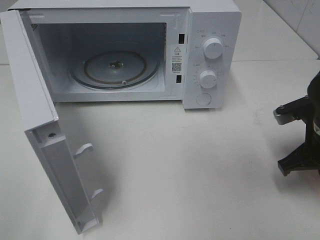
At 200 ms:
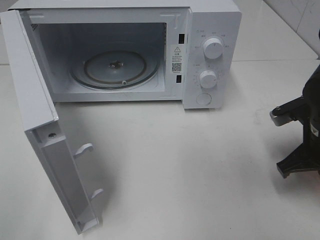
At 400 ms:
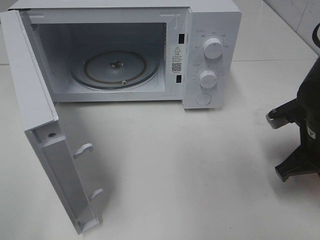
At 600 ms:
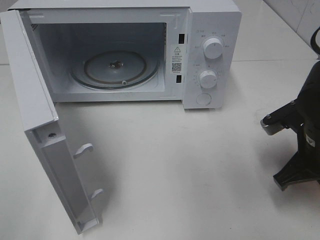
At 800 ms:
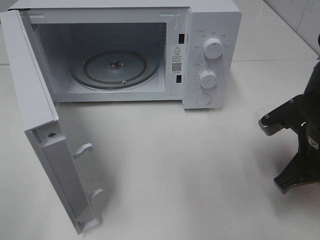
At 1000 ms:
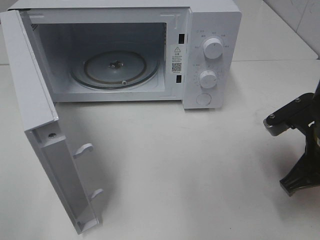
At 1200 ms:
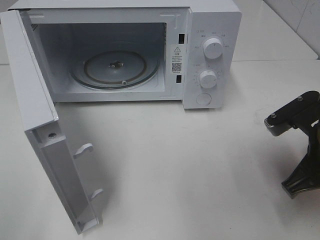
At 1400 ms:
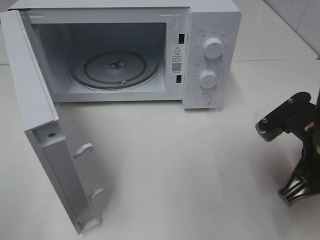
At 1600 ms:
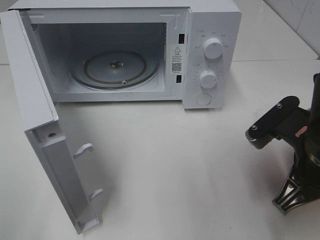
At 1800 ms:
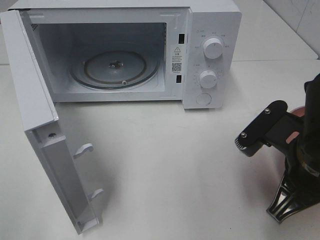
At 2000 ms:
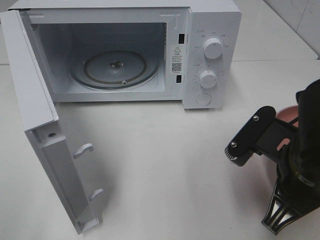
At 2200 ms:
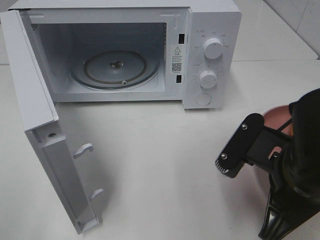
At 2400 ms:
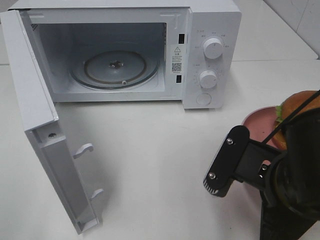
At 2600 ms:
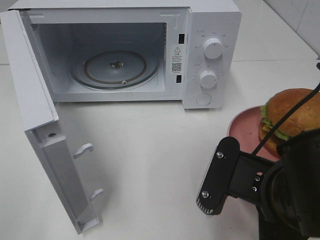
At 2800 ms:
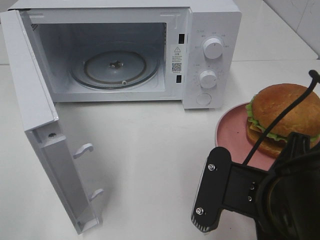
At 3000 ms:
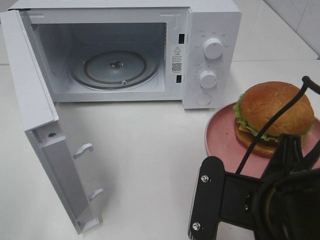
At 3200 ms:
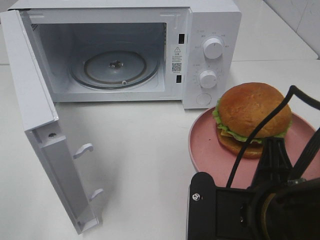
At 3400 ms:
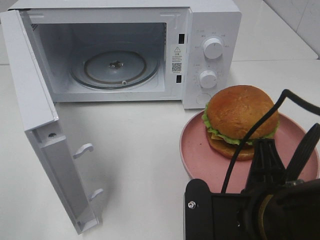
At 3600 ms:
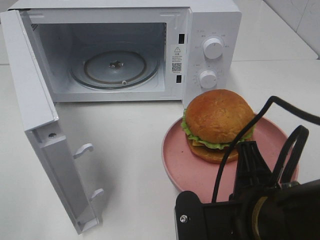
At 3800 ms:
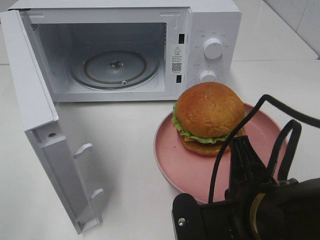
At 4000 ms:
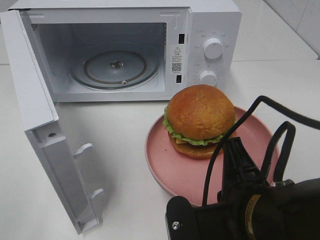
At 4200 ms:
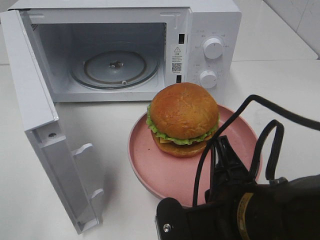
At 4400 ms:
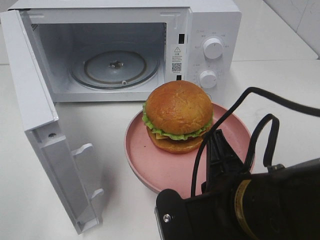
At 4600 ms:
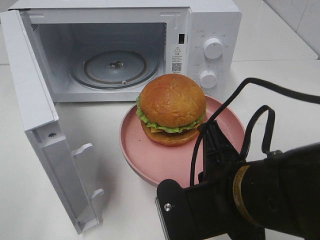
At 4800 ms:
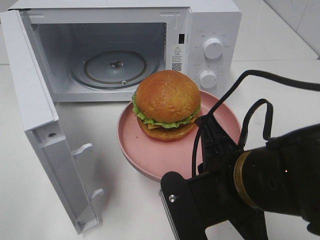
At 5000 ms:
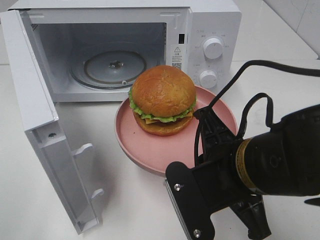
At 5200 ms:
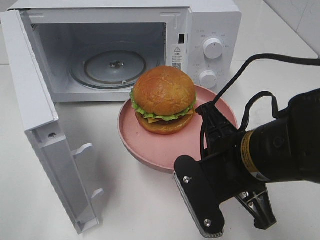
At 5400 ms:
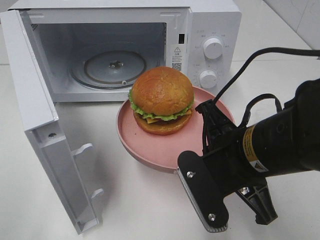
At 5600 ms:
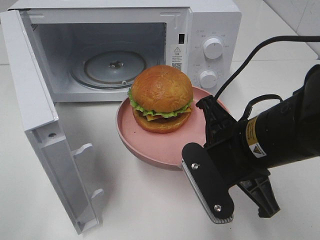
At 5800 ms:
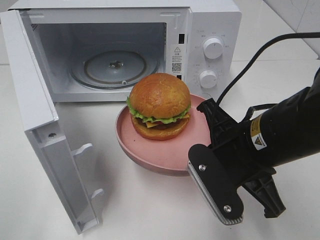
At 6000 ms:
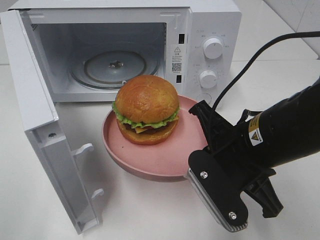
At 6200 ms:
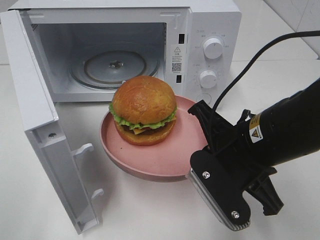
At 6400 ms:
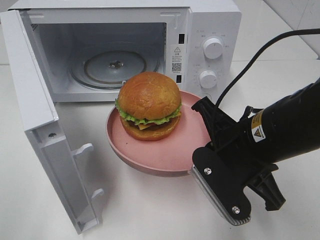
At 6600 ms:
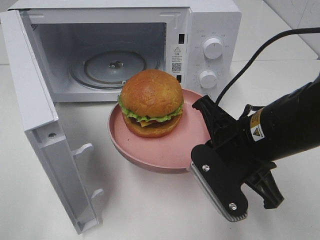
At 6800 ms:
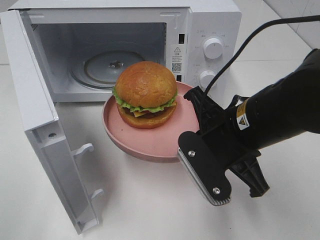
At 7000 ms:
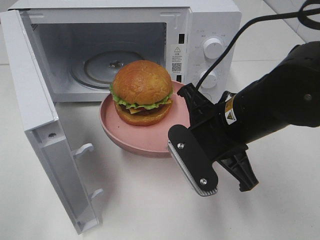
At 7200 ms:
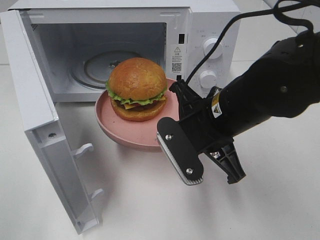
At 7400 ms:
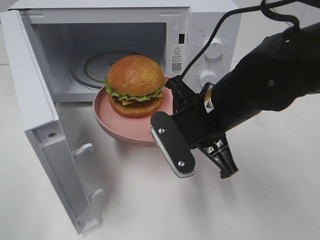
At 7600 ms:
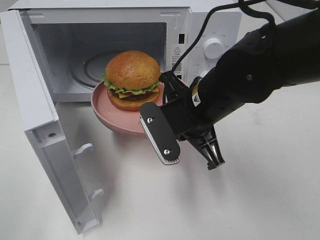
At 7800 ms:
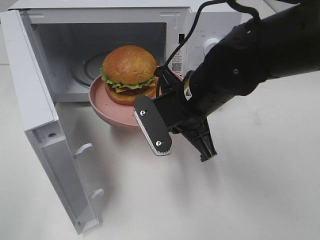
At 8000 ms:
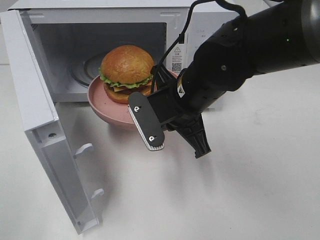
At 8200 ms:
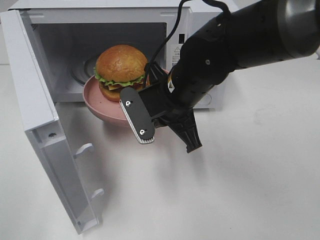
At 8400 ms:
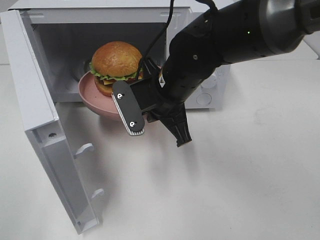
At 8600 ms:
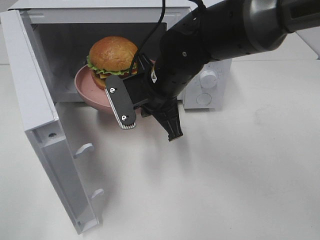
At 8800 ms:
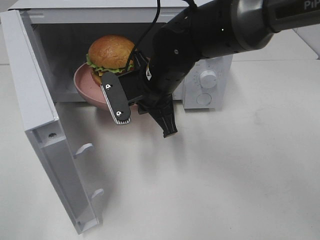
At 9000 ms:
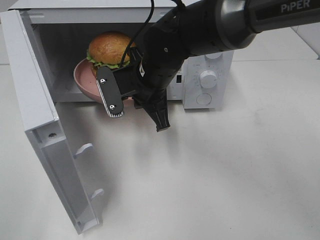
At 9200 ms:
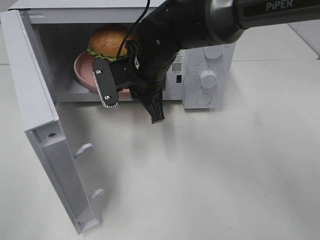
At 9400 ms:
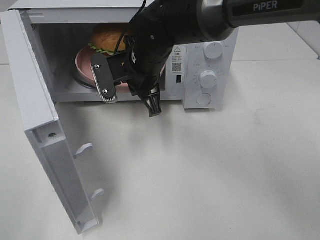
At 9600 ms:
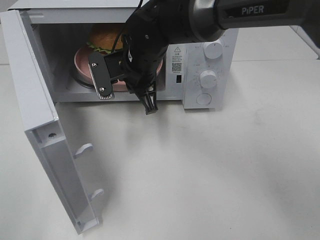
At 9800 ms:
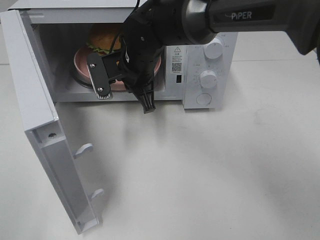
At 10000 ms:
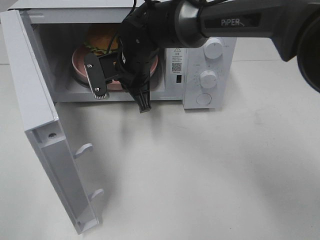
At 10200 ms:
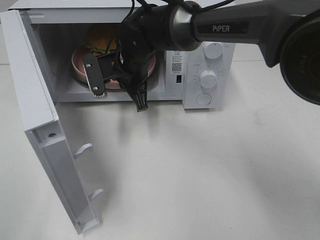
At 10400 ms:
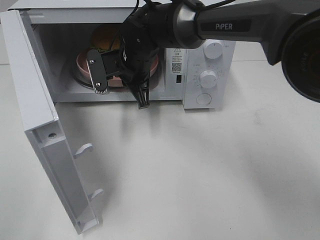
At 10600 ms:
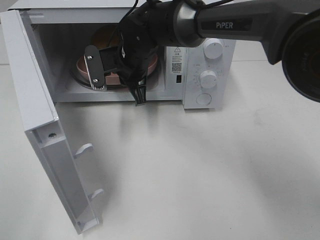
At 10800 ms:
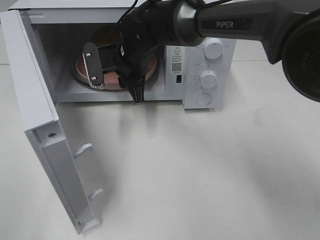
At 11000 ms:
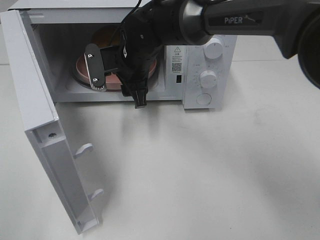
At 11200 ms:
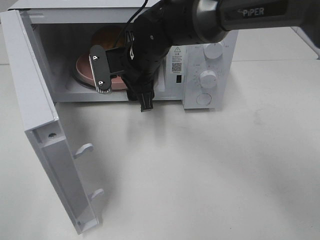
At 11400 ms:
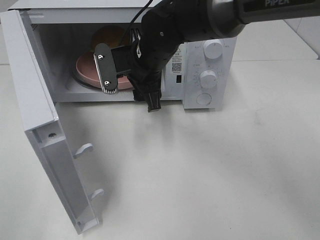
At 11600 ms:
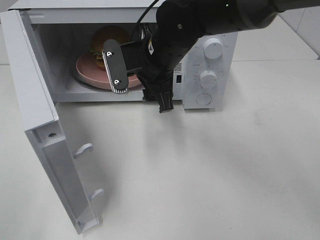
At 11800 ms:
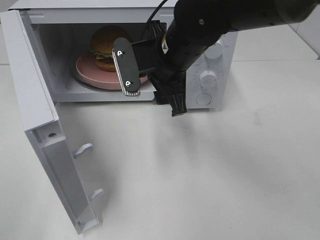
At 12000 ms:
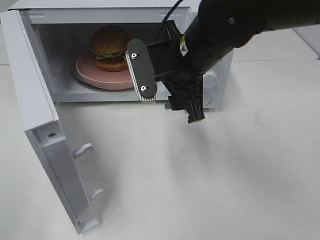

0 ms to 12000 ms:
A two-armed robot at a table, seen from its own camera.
Task of the whole recording: Heat the burger.
Step, 0 ms to 10800 ms: Right hand: place the plate in the microwave.
0 ms to 1600 ms: The right gripper shifts about 10 cm backward and to the left.
1600 ms to 3000 ms: The right gripper heads backward and to the left, covering some 10 cm.
4400 ms to 6000 ms: The right gripper travels forward by roughly 10 cm.
6000 ms to 7600 ms: The right gripper travels forward by roughly 5 cm.
7600 ms to 9000 ms: The right gripper is displaced forward and to the left by roughly 10 cm.
9000 ms to 10400 ms: The right gripper shifts roughly 5 cm forward.
10400 ms to 12000 ms: The right gripper is displaced backward, to the right and upward by approximately 15 cm, and opens its fingers.

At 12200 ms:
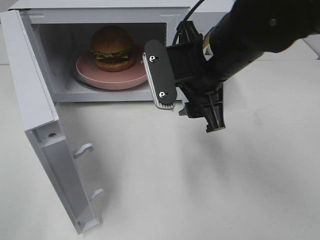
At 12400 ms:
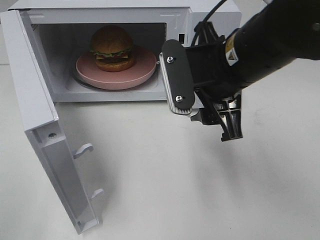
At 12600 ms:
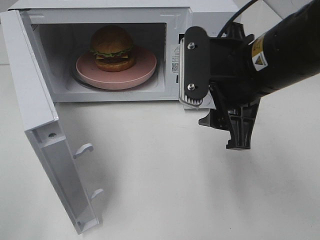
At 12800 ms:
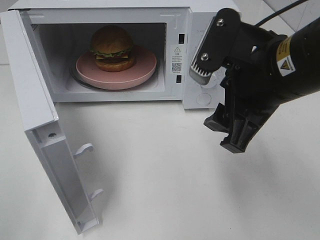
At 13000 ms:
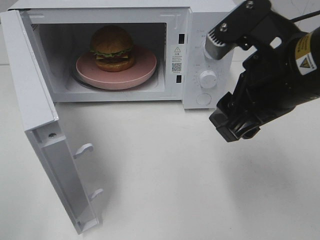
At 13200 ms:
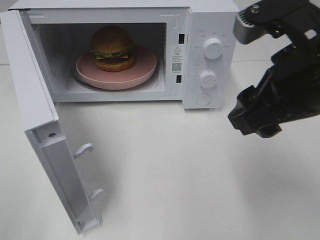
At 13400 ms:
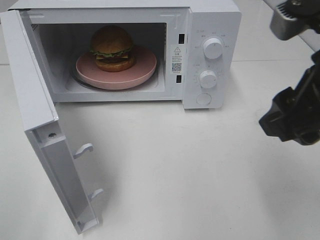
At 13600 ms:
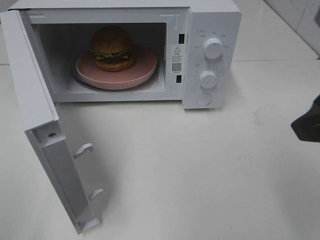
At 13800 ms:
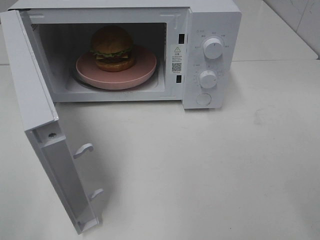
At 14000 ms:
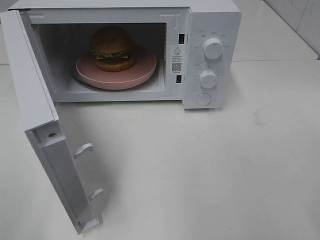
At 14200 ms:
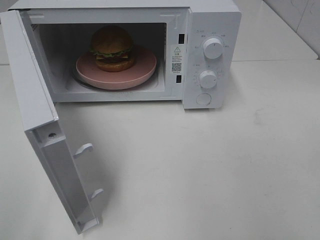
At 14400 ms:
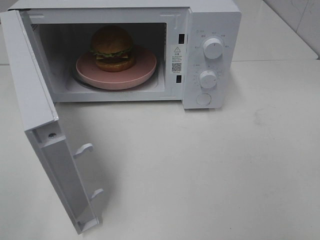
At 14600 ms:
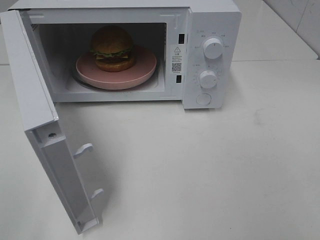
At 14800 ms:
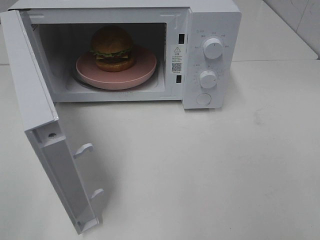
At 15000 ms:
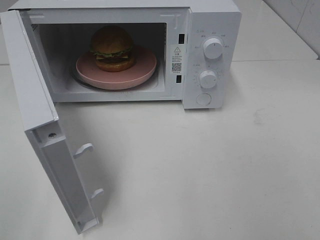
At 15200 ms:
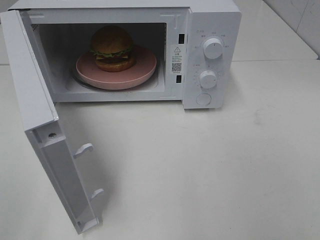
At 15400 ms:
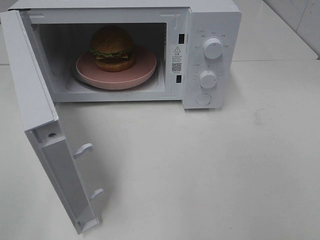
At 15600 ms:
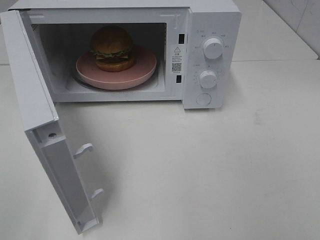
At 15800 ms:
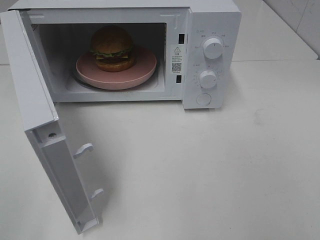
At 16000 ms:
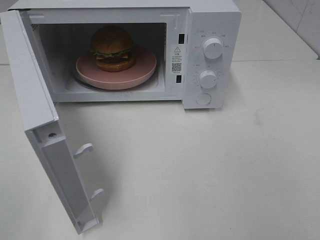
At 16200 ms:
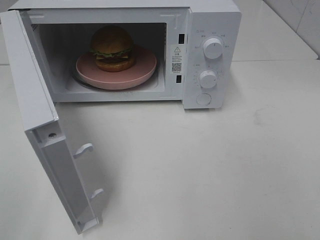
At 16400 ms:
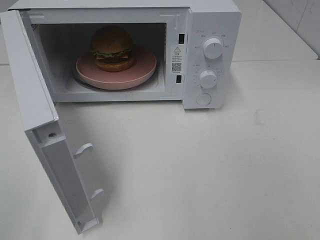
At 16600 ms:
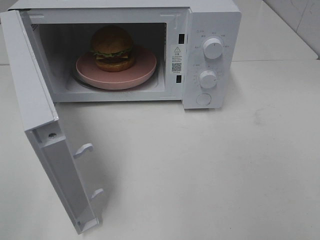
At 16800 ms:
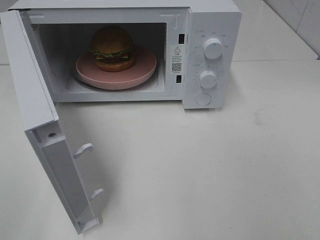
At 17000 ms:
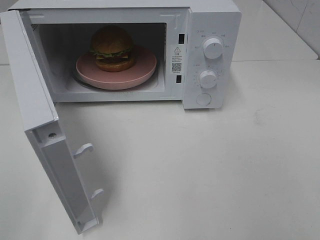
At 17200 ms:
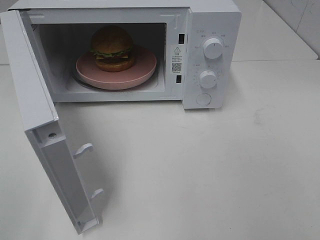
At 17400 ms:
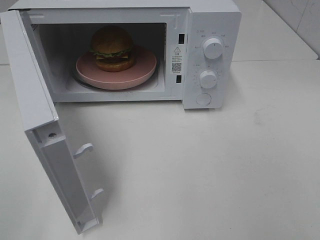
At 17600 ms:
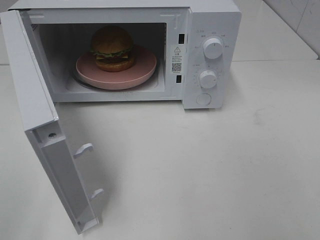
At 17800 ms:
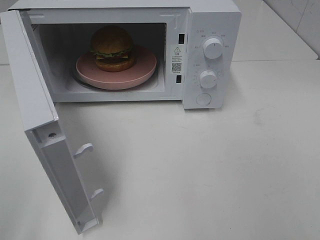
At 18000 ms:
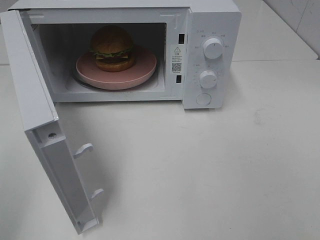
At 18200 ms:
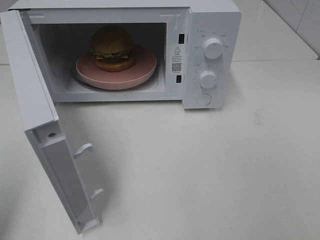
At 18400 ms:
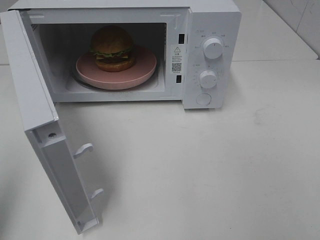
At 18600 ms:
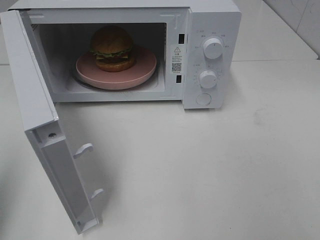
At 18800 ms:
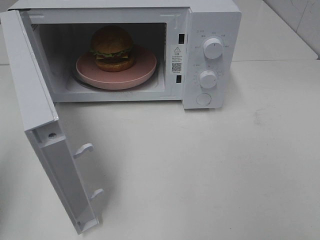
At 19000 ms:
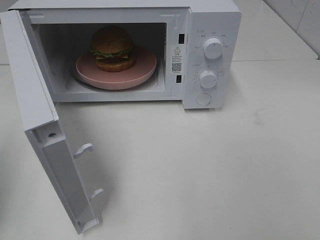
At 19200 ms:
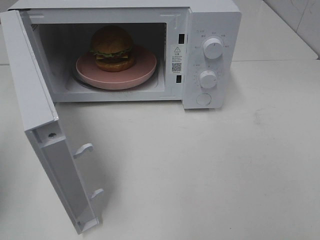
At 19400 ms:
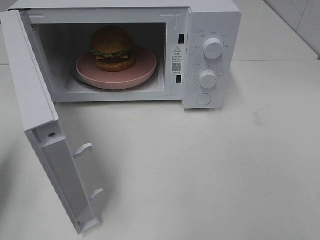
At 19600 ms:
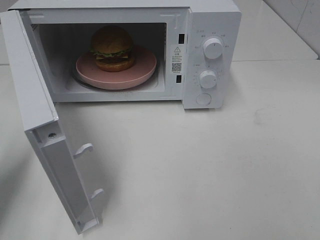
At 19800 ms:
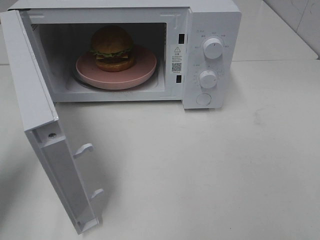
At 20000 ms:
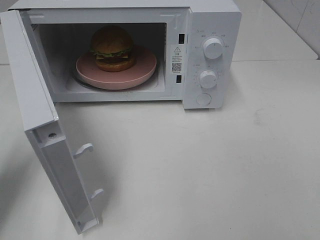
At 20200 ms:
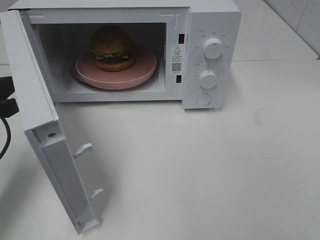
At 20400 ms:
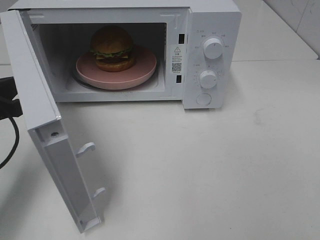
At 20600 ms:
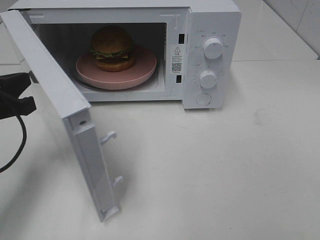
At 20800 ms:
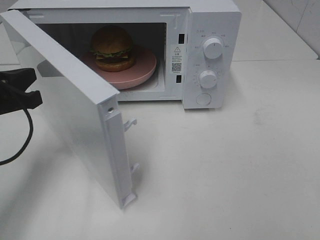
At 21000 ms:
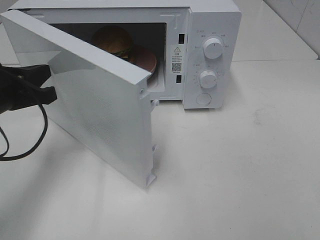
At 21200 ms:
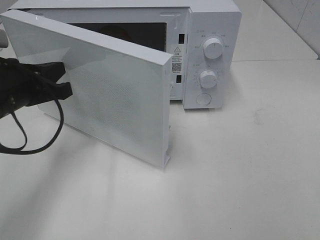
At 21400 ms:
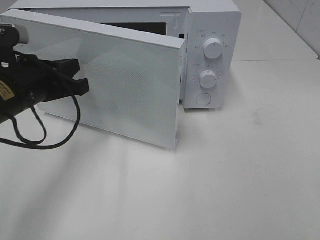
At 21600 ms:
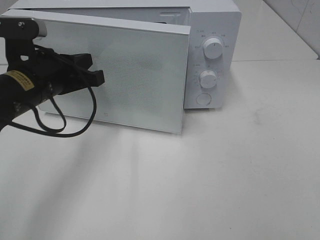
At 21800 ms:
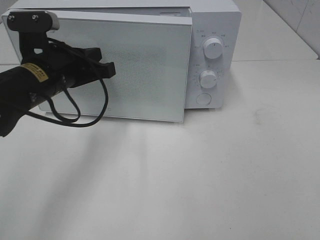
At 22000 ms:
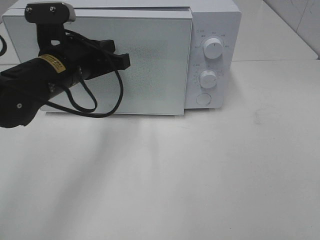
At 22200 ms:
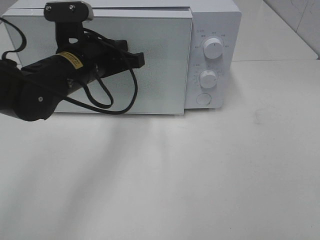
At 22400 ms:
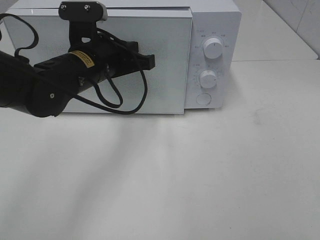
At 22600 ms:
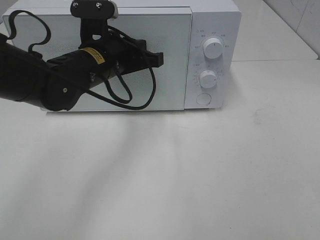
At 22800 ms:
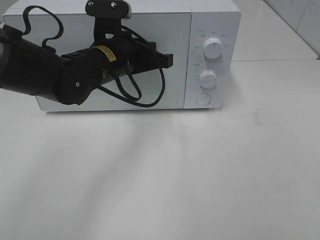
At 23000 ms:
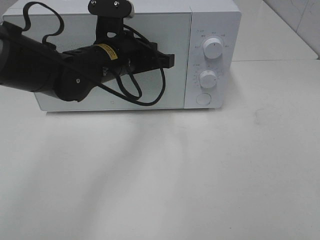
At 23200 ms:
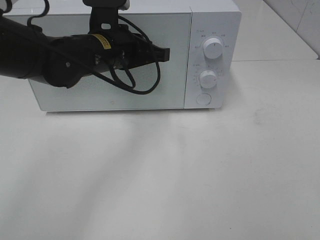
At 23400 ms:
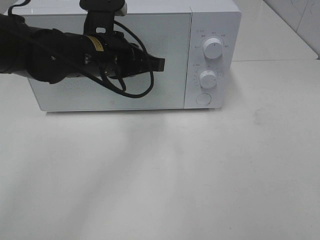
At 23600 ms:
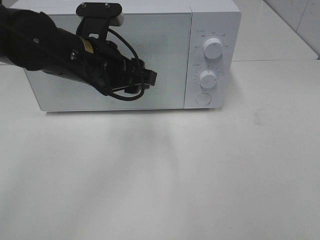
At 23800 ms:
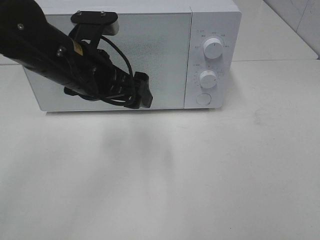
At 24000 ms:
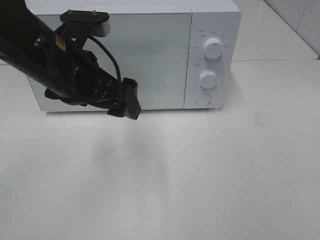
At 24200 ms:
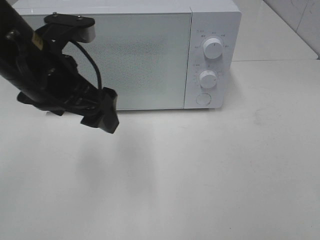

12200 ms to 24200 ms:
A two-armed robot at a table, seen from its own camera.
Task of the whole recording: Heat the burger.
Step, 12200 ms to 23200 ms: Left hand: close the microwave door.
12200 ms to 13800 ms: The right gripper moves backward, to the right and upward, roughly 25 cm.
15200 ms to 16600 ms: The two grippers keep their place.
18200 ms to 19800 ms: The left gripper shifts about 15 cm forward and downward.
19800 ms to 21200 ms: The left gripper is displaced to the right and forward by approximately 10 cm.
21200 ms to 22600 ms: The left gripper travels to the right and forward by about 15 cm.
22600 ms to 24200 ms: The left gripper heads backward, upward and to the left, covering some 10 cm, and opens up.
